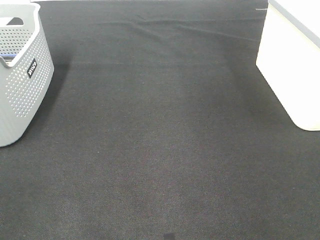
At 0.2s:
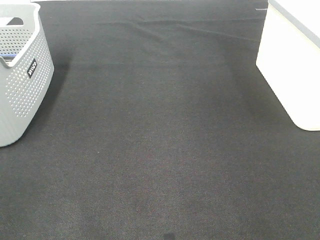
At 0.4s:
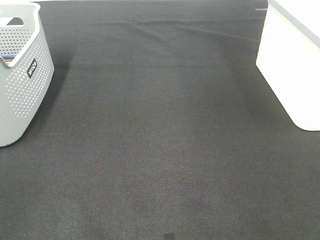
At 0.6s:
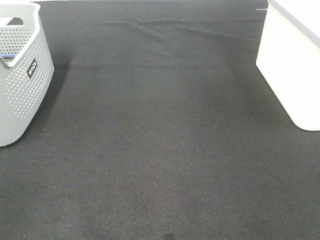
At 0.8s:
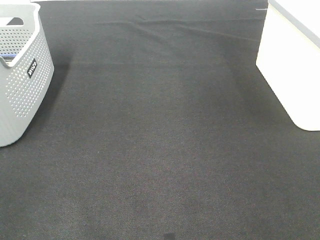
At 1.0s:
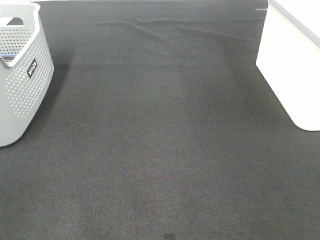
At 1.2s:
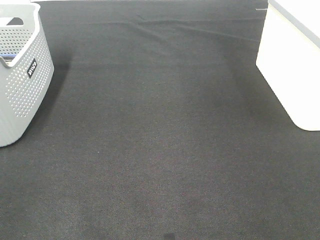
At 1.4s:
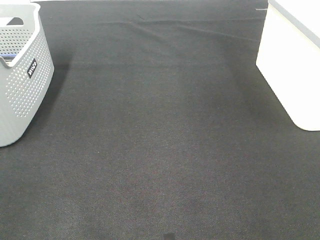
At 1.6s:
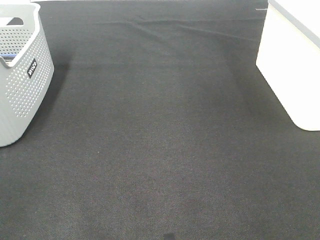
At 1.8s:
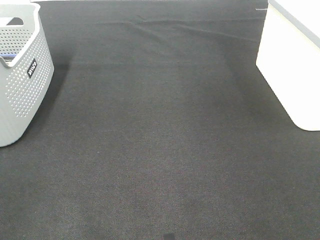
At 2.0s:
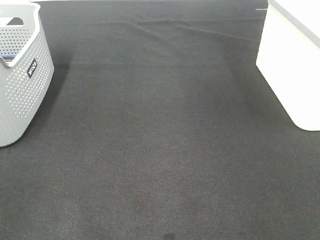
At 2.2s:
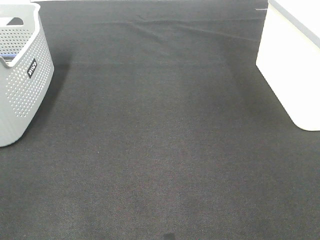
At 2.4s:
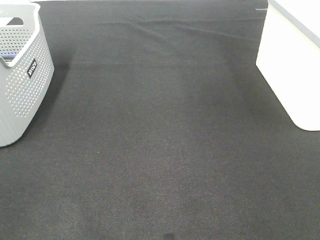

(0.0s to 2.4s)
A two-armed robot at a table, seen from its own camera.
1.2s - 2.4s: Neither gripper changes place.

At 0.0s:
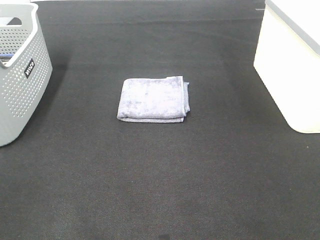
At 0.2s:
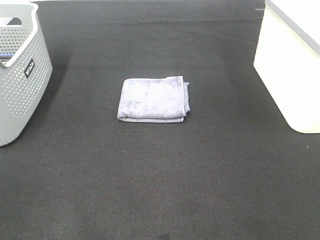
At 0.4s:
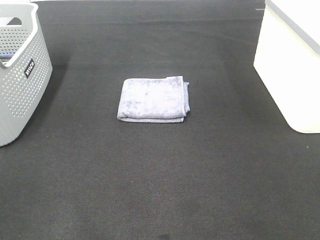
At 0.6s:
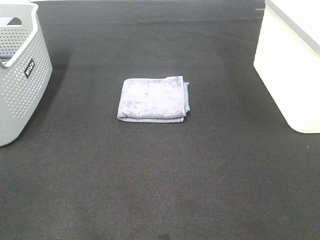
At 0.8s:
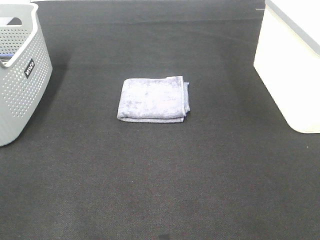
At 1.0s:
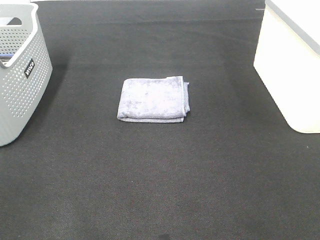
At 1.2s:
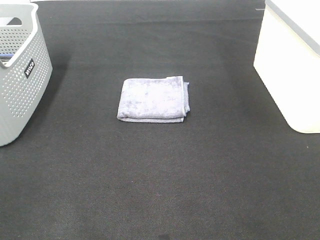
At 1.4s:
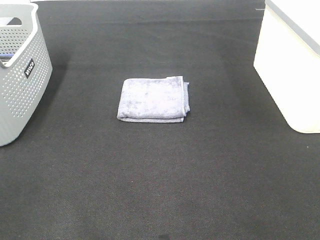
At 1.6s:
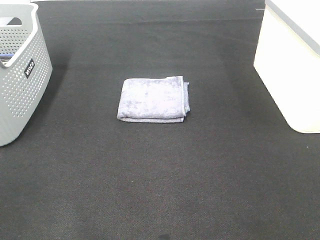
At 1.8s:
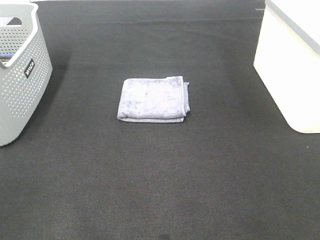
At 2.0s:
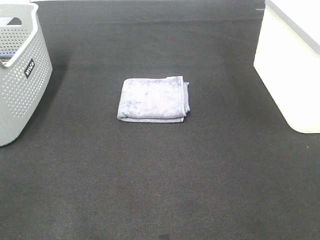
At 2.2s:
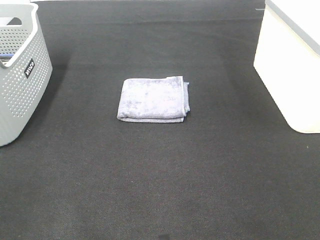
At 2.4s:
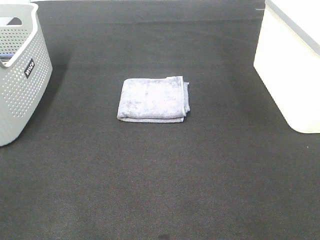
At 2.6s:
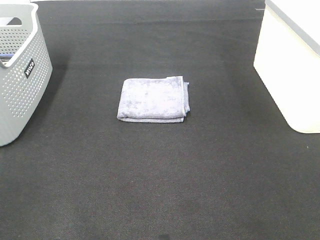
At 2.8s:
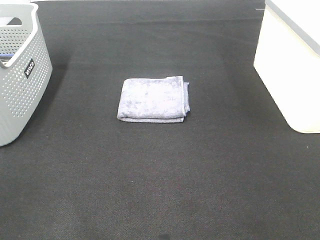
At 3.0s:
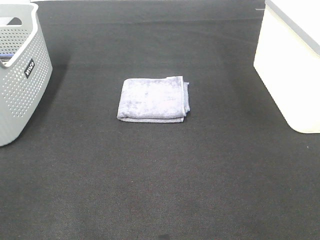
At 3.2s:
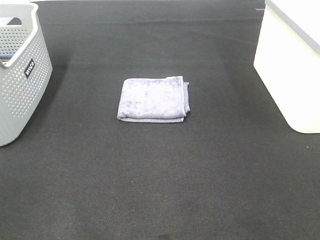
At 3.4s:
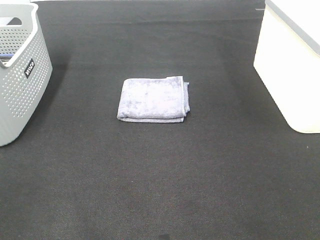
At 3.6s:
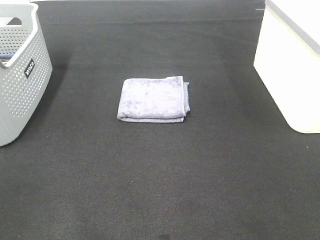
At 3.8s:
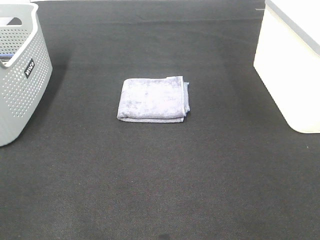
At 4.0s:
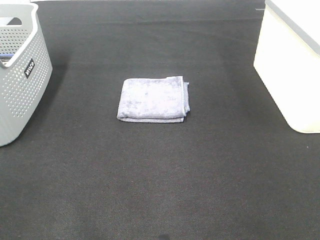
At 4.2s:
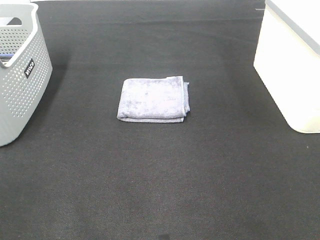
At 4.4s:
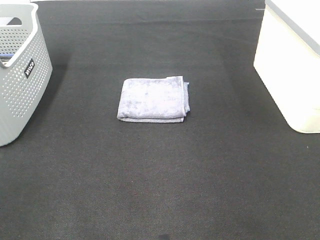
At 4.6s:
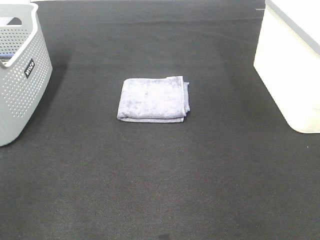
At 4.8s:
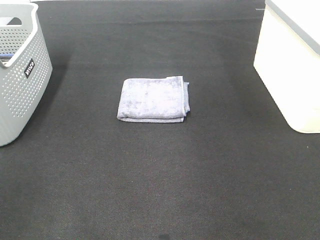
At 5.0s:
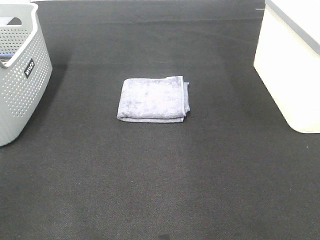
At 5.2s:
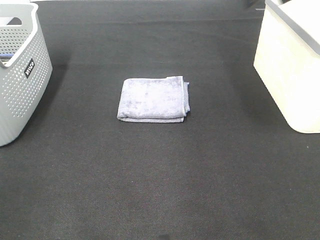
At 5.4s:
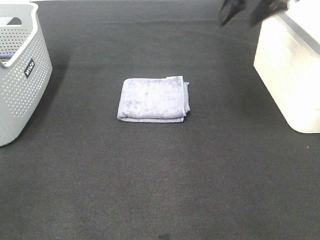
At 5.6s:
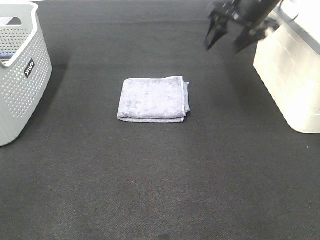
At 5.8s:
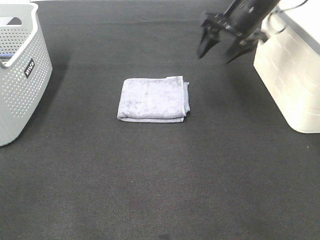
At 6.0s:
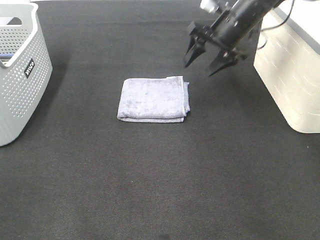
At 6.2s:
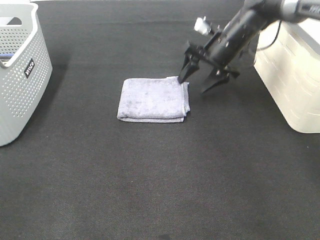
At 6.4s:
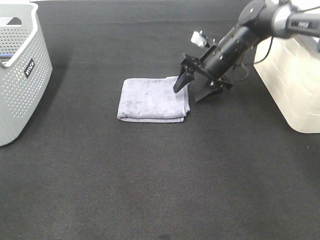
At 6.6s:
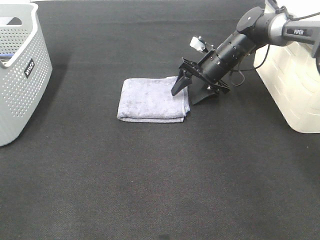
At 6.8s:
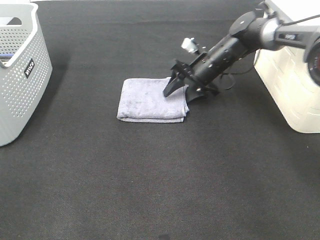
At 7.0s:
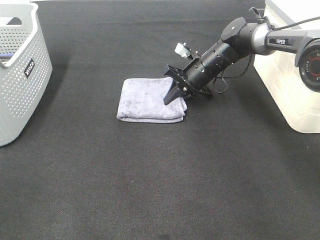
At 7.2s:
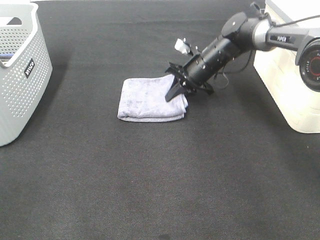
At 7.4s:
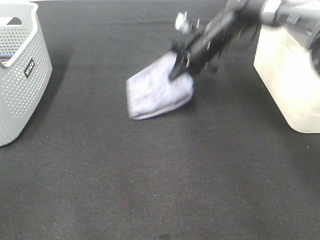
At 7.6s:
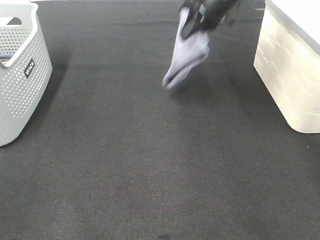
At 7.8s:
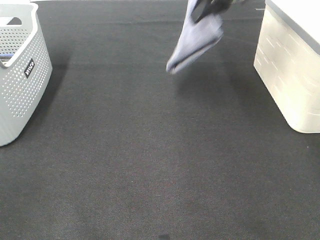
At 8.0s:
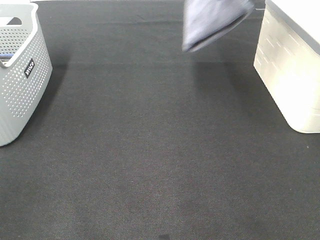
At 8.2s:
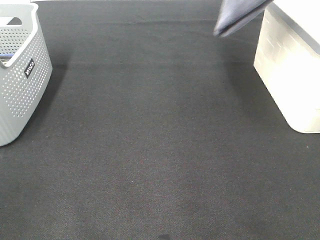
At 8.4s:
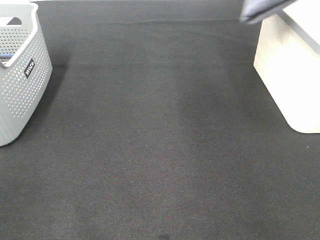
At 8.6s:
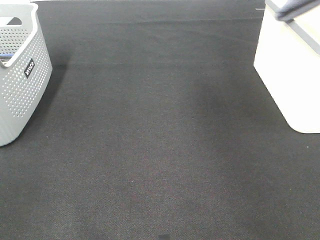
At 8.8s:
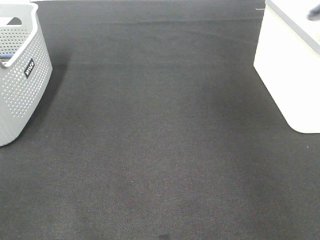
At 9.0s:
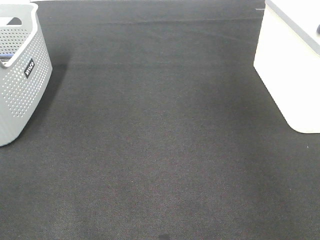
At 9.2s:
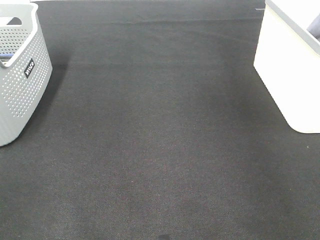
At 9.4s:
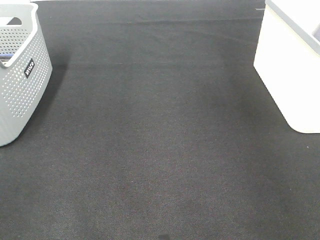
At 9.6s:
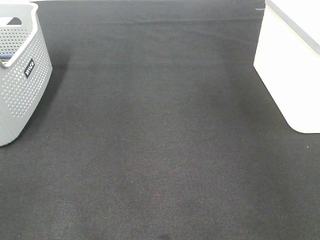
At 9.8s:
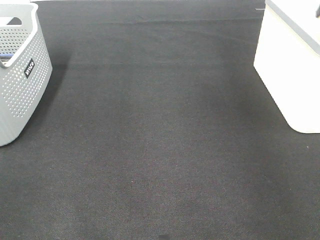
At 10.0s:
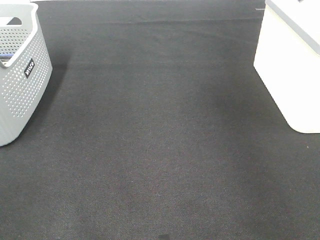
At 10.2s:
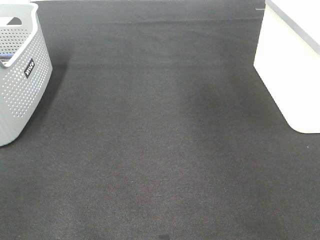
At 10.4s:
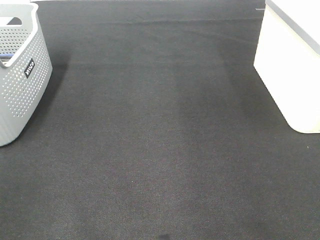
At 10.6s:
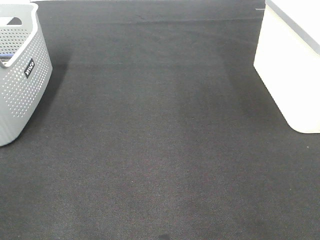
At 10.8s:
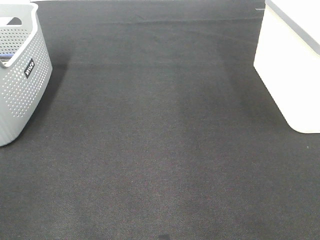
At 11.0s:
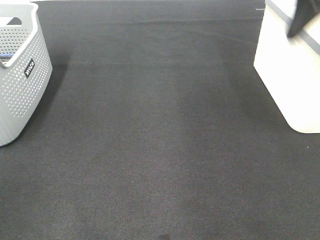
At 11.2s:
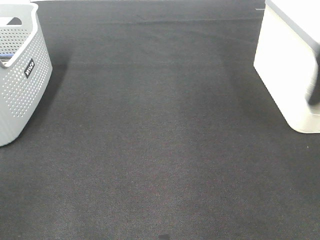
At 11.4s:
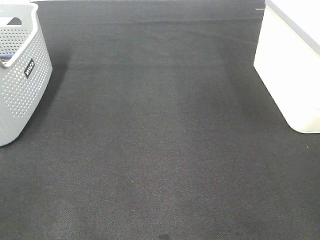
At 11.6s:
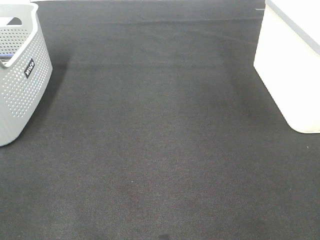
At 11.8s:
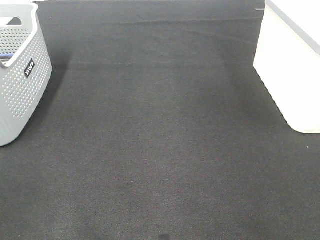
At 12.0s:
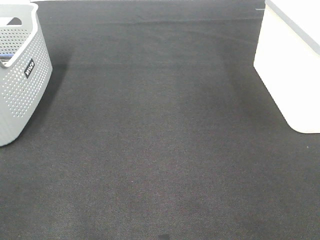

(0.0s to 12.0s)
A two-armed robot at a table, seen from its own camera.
Step, 0.0s - 7.0s: Right hand: grab the folded grey towel.
Step, 7.2s - 9.6s: Right hand: place the grey towel in right basket.
0.0s - 3.0s: Neither gripper changes place.
4.4s - 6.0s: The right gripper heads forward, downward and to the left, covering roughly 40 cm.
6.0s - 7.6s: The right gripper goes roughly 10 cm upward, and closes up.
7.6s - 9.0s: The right gripper heads to the right and upward, covering approximately 30 cm.

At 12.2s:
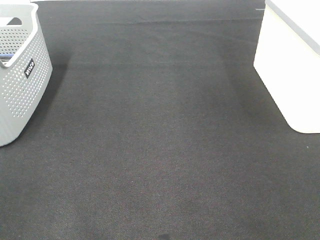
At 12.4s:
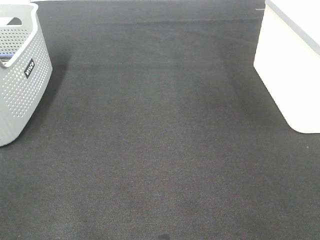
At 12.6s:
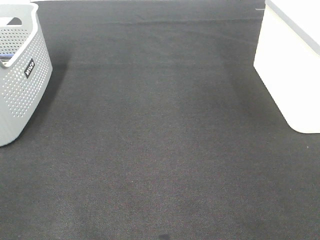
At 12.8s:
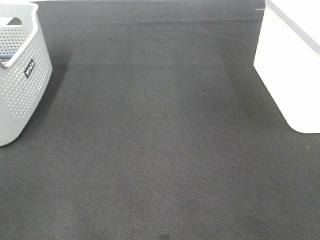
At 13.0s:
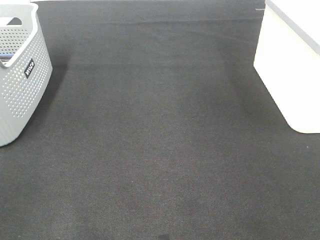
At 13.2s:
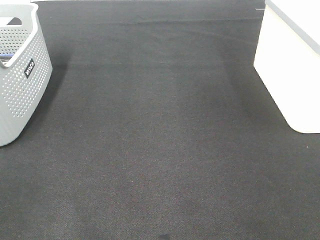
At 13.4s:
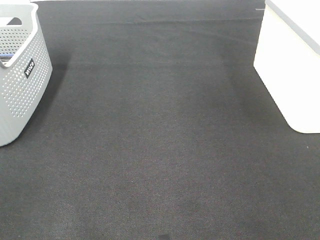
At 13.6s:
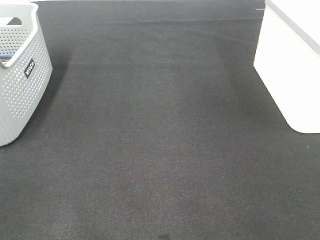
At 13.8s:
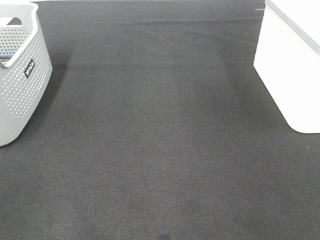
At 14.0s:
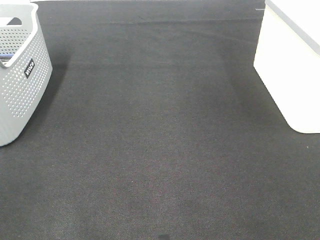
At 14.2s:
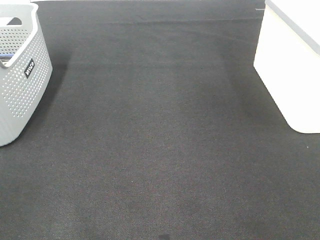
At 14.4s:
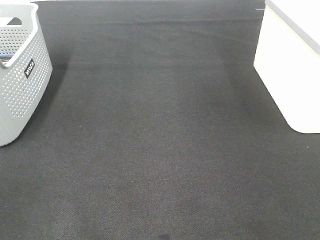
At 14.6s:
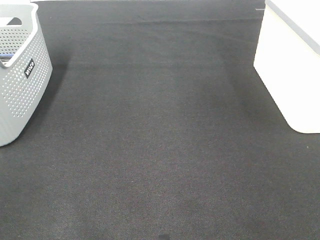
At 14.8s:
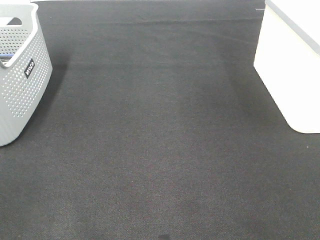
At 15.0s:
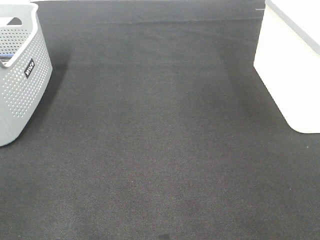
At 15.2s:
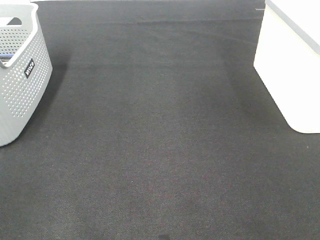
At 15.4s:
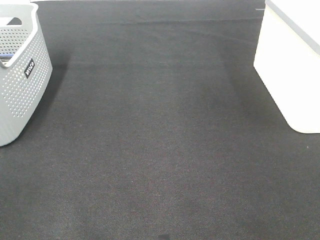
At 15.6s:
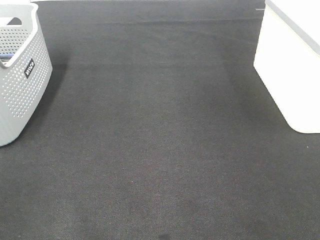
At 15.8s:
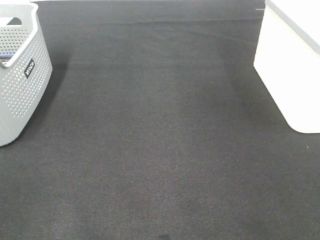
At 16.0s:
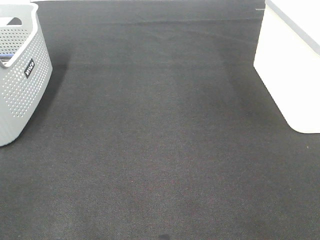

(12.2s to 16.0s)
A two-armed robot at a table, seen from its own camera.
12.2s - 13.4s: Neither gripper changes place.
14.8s - 16.0s: Both grippers stay about where they are.

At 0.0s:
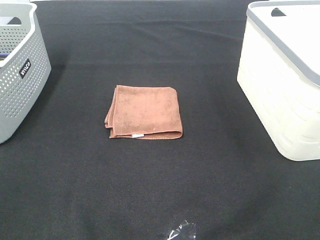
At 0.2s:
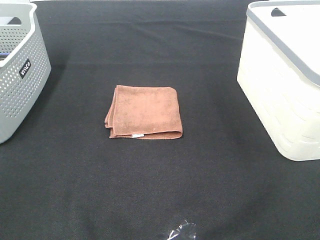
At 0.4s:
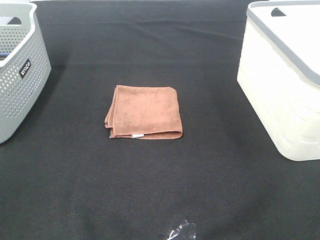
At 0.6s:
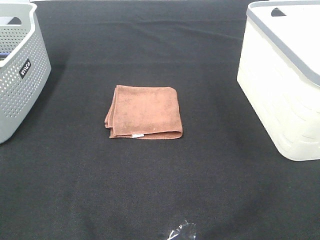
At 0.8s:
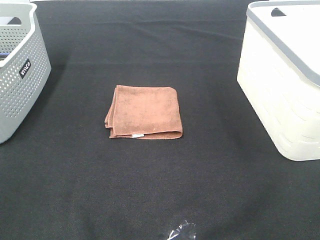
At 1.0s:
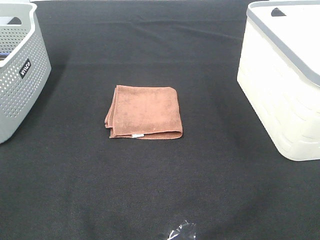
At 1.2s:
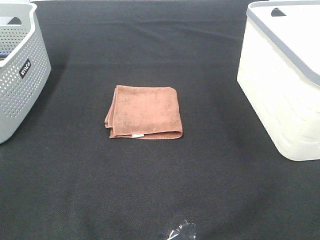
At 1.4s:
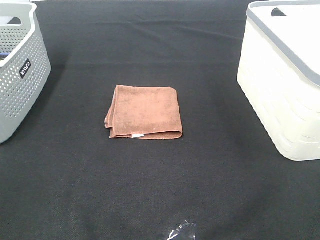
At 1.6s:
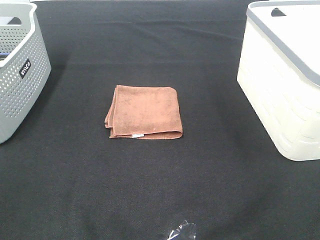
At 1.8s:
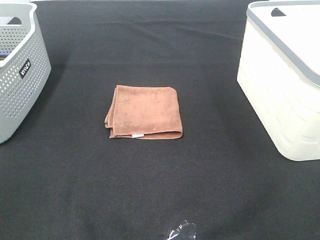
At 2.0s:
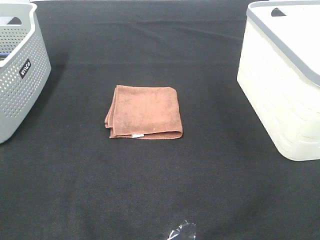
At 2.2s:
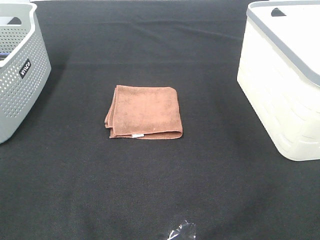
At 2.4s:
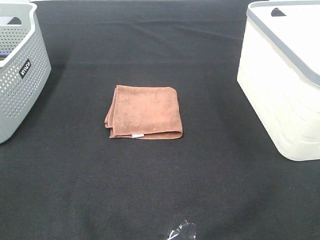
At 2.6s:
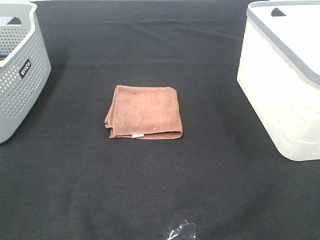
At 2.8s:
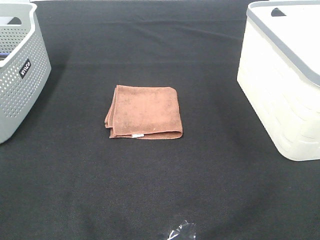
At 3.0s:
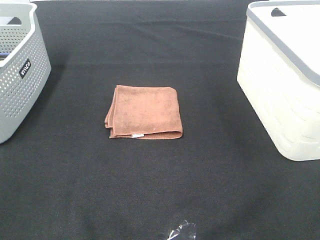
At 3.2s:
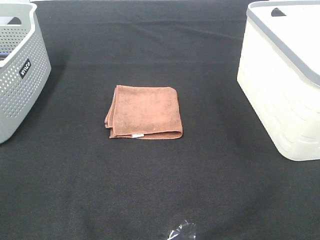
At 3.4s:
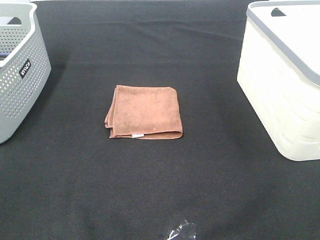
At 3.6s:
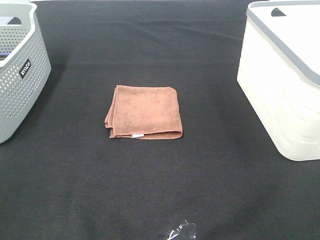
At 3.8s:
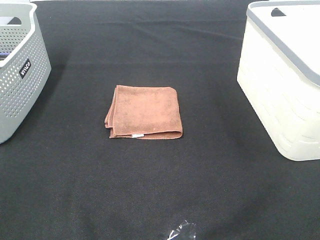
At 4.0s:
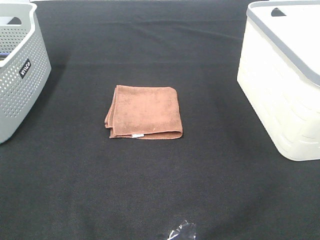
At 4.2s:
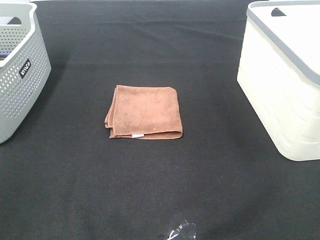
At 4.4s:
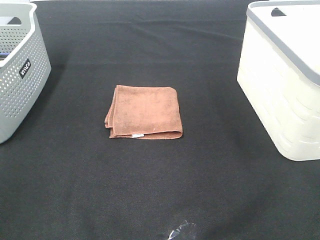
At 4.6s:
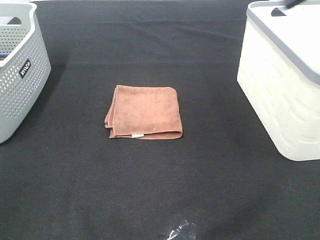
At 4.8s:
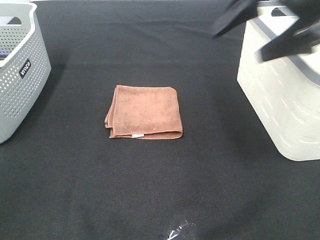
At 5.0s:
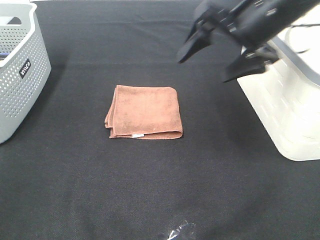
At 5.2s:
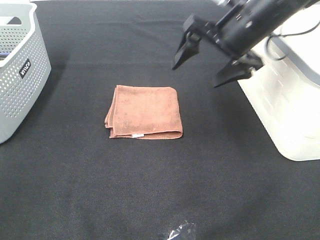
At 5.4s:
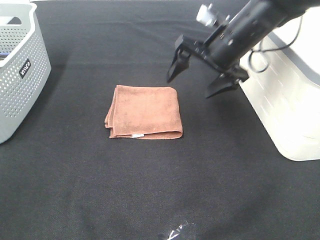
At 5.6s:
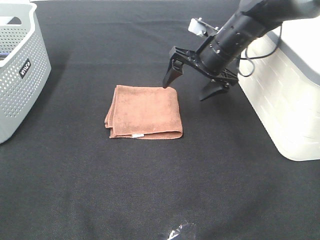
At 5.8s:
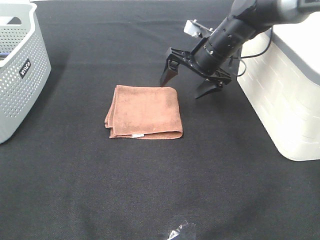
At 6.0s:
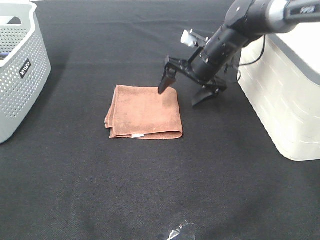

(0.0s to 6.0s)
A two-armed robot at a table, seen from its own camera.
0.0s - 3.0s: The two grippers keep their place.
4.4s - 6.0s: The right gripper travels downward, forward and to the left by roughly 40 cm.
